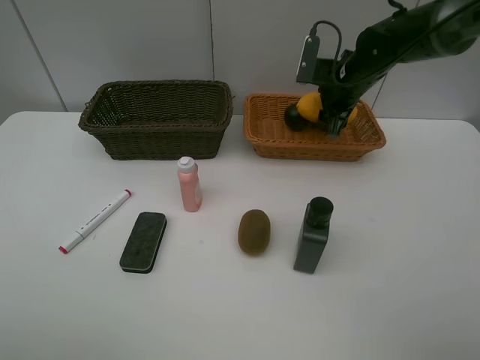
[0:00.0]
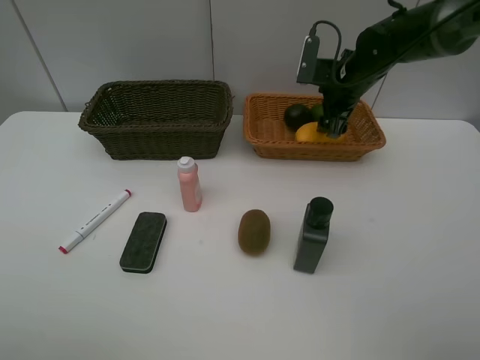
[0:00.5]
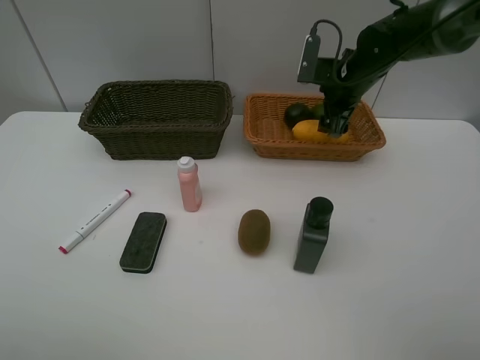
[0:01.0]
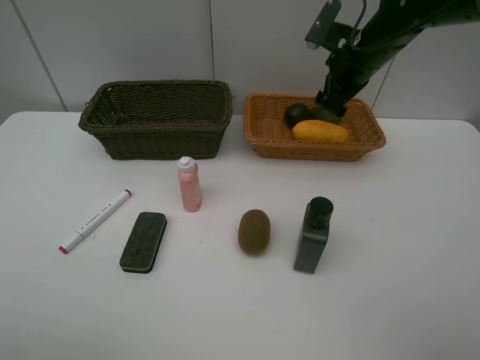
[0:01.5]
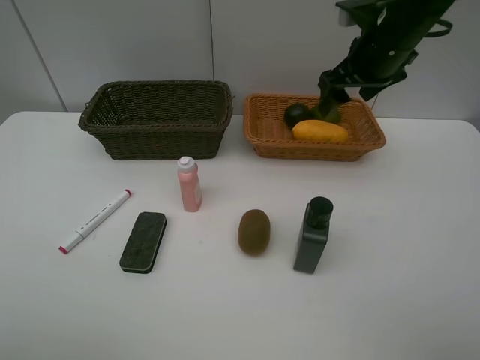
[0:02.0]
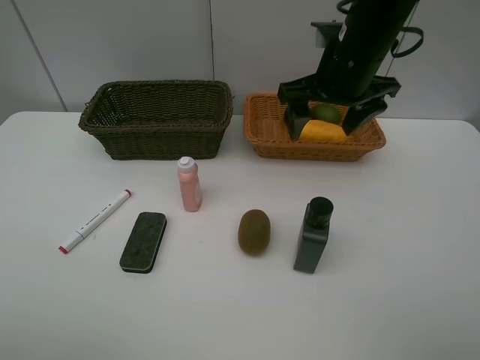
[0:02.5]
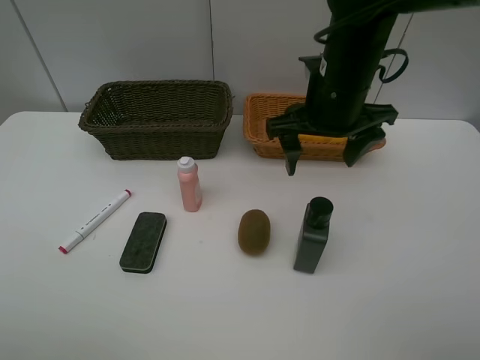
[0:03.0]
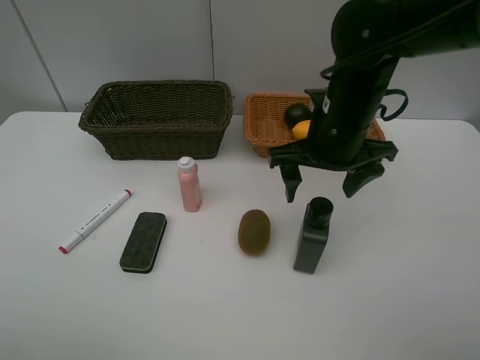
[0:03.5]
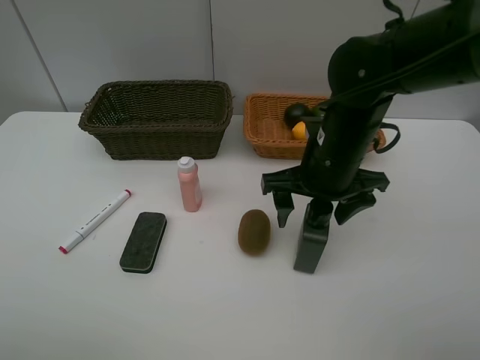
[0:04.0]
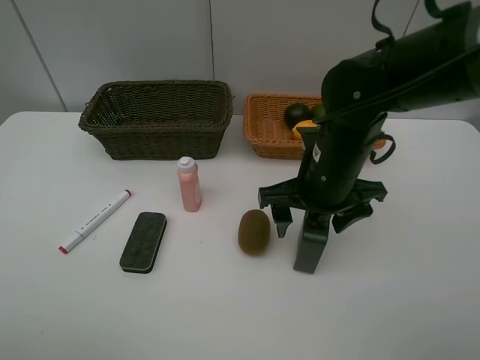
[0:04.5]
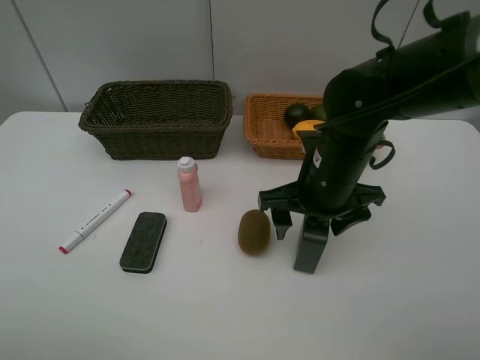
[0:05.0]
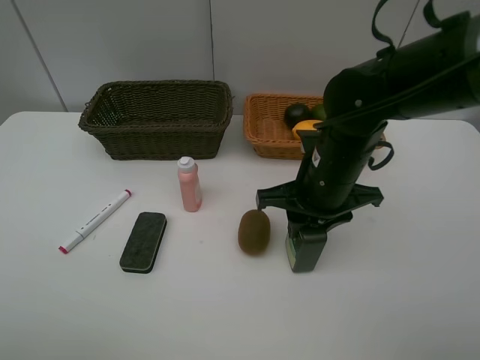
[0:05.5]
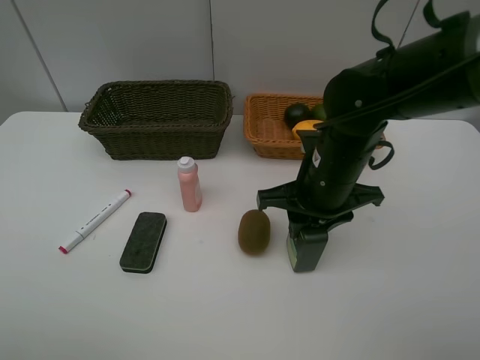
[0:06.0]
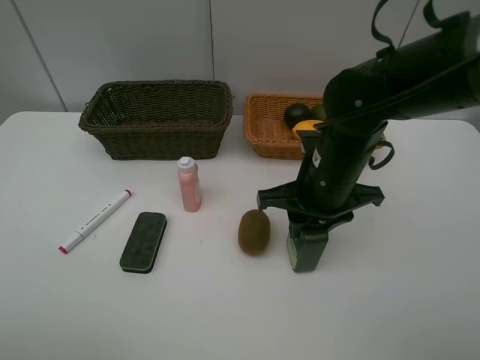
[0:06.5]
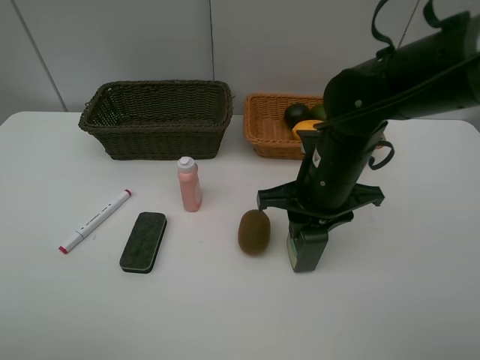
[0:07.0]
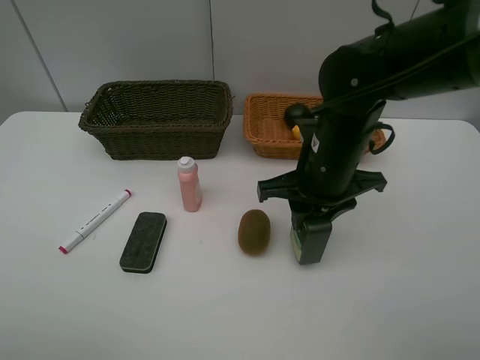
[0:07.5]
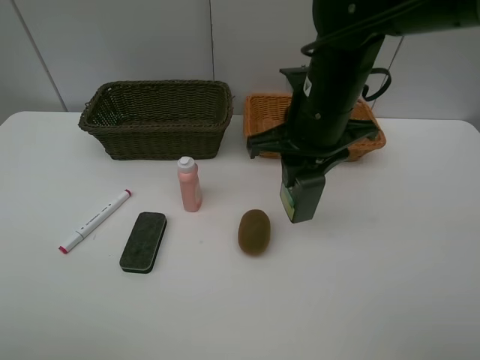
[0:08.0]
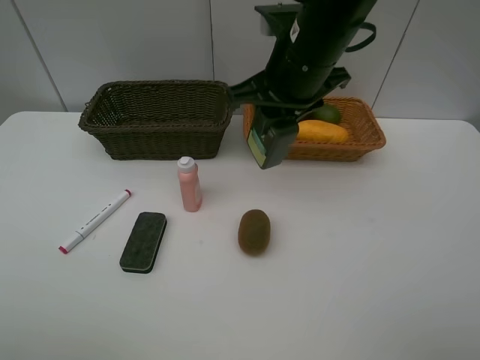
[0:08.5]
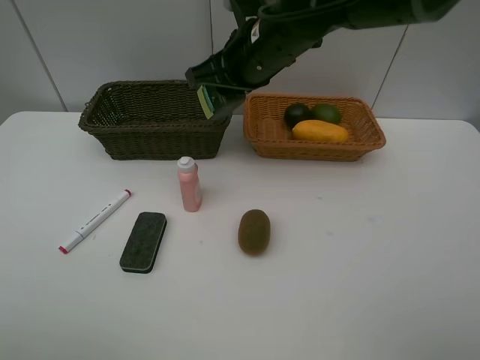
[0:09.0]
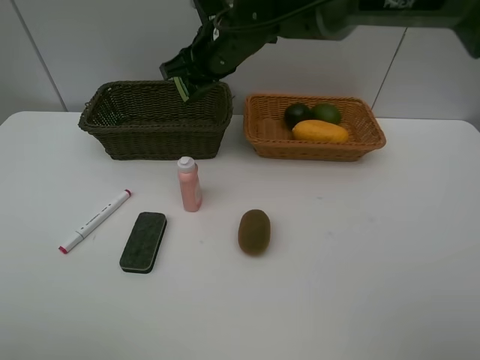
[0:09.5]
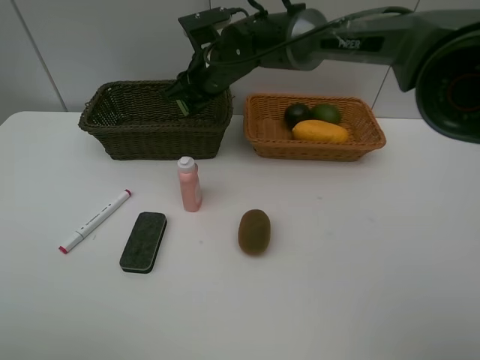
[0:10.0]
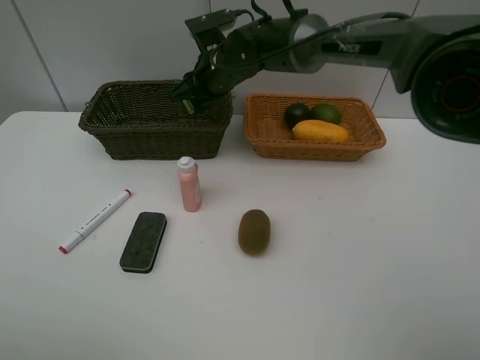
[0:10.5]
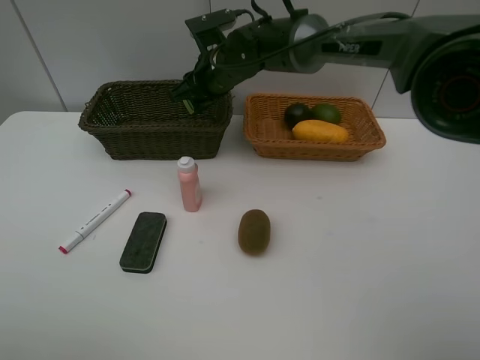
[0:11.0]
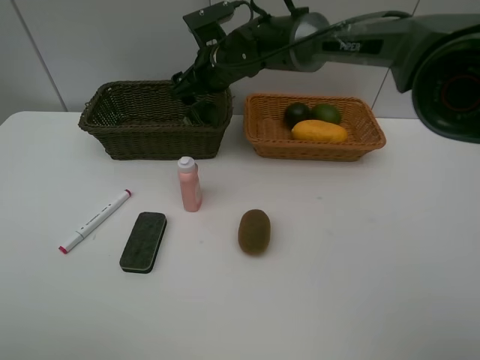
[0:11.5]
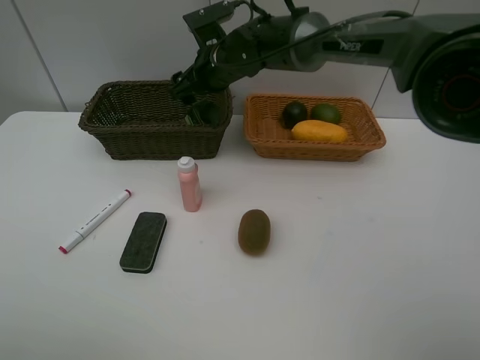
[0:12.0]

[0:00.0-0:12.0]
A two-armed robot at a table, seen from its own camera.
Task of the whole recording: Place multiple objects separately in different baskets.
Step, 0:01.5 to 0:07.5: Pick up the hard facial cleanser with right gripper.
0:00.0 to 0:02.0: The right gripper is displaced upward and backward by some 10 cm, and opens its fingers.
0:02.0 to 0:04.0: The right gripper travels backward, downward and to the left by approximately 15 cm.
0:04.0 to 0:06.0: The right gripper closes up.
0:06.0 to 0:08.0: The right gripper is displaced upward by about 5 cm.
0:08.0 to 0:10.0: The right gripper travels forward and to the left by roughly 20 cm.
0:10.0 to 0:12.0: The right gripper opens its fingers.

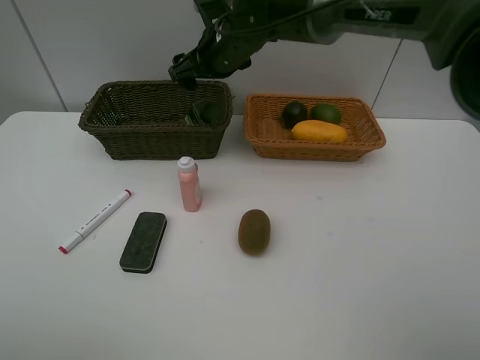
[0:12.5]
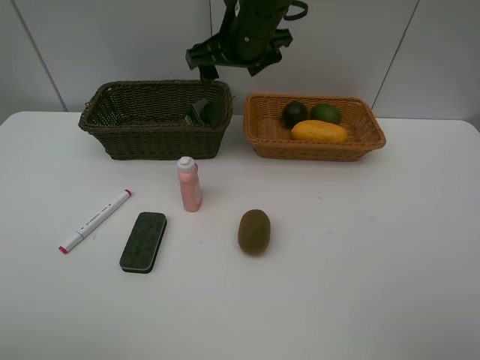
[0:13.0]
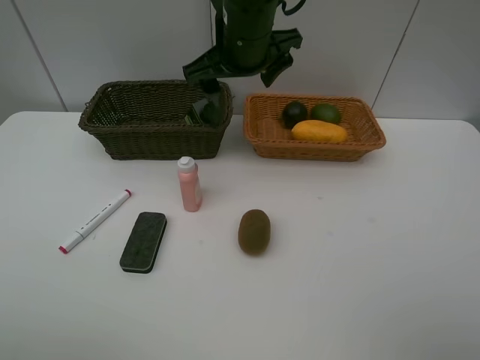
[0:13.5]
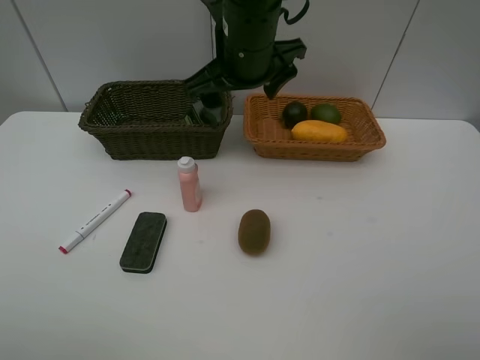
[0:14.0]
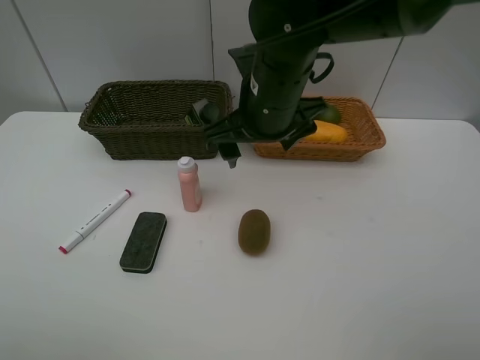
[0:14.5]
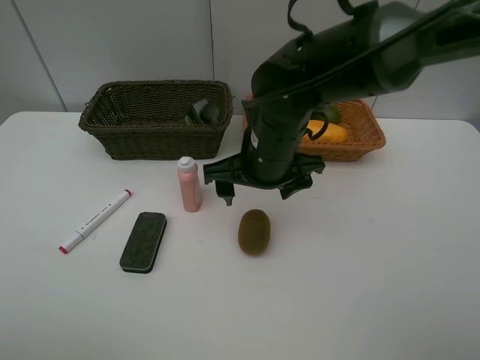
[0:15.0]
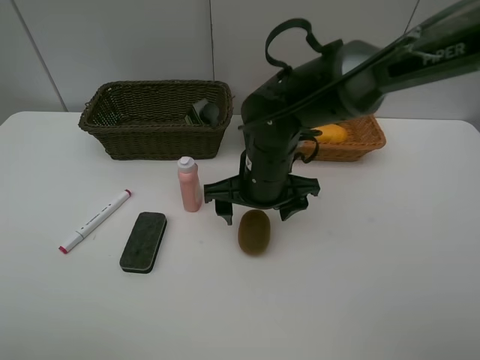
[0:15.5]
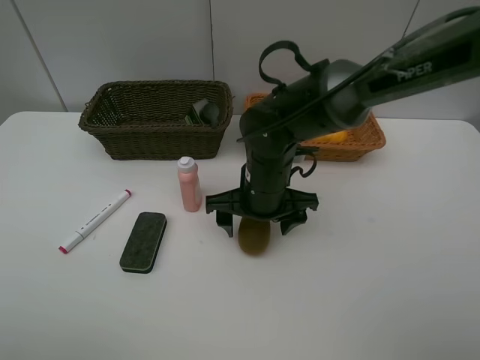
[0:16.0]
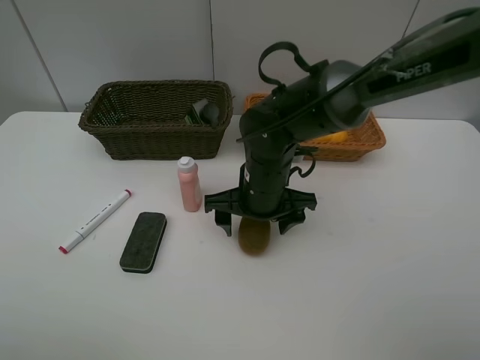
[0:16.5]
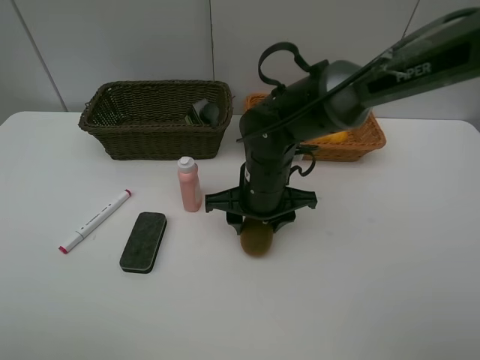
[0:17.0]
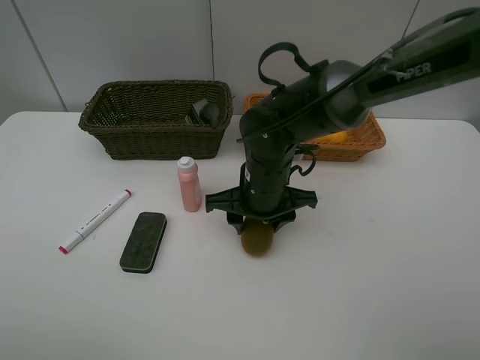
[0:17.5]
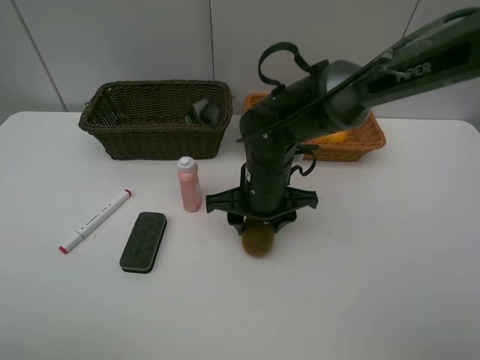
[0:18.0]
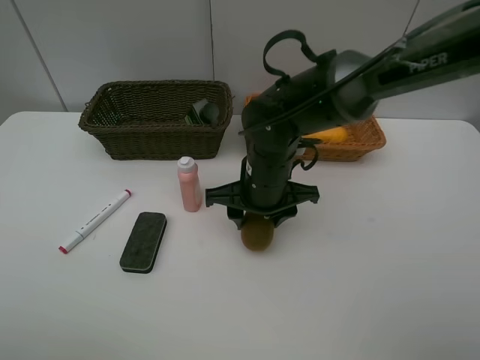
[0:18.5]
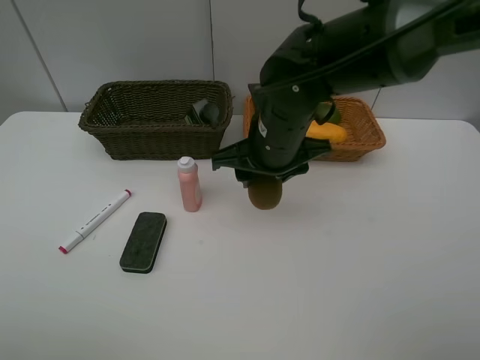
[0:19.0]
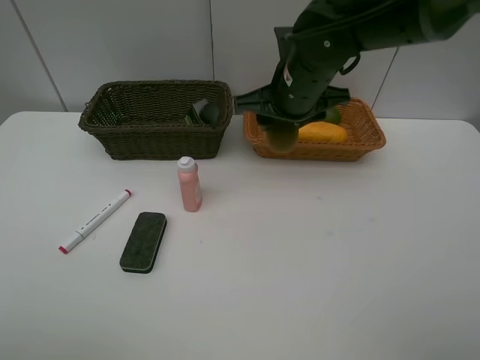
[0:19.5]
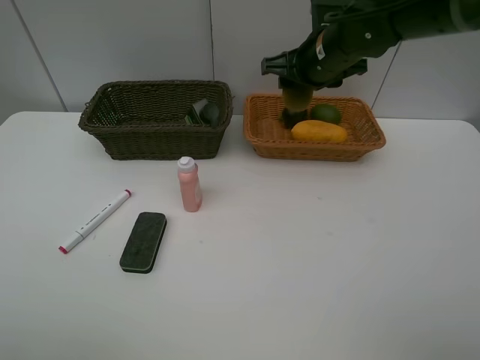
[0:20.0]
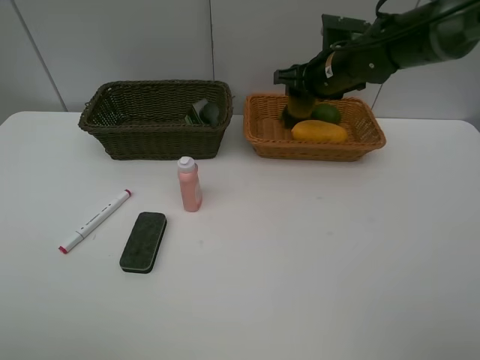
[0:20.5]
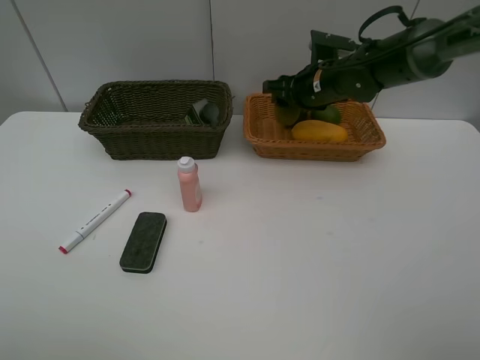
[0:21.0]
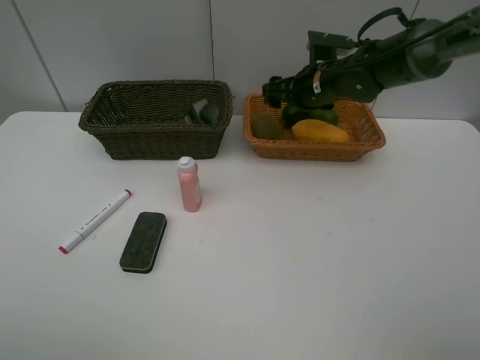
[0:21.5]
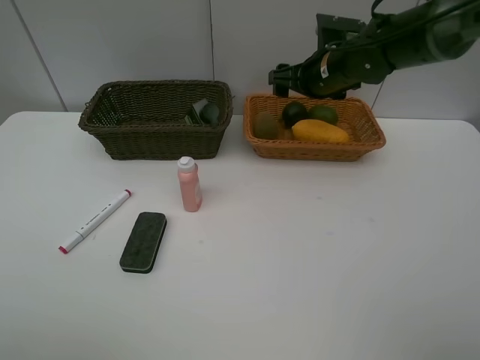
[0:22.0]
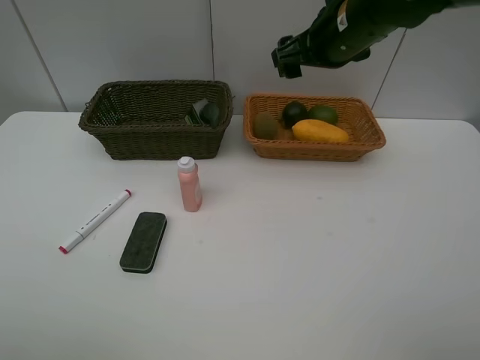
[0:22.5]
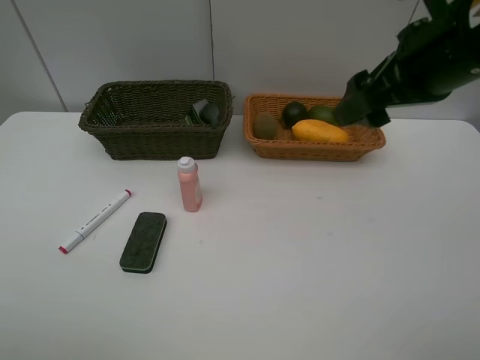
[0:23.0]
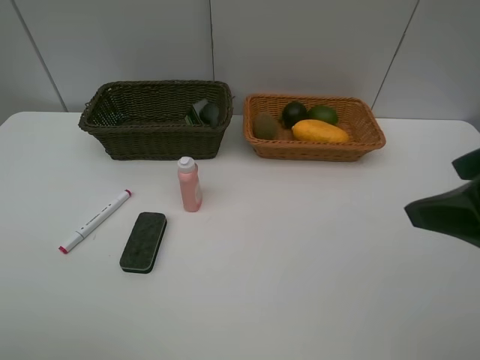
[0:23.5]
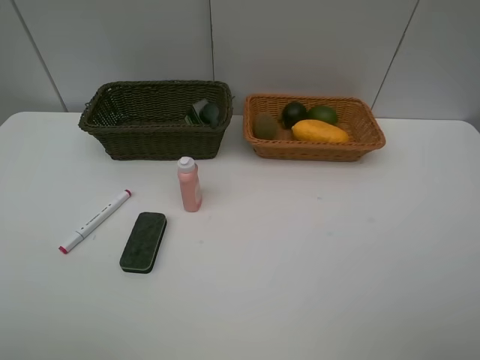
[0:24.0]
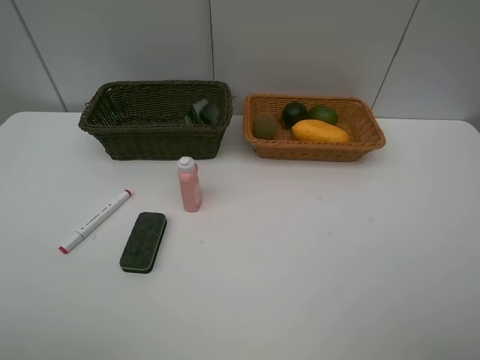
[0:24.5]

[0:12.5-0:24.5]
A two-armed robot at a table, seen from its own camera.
Task of the whole recording: Place multiple objects separately in different baskets.
Step, 0:12.5 to 0:18.5: Pick up kiwi with right gripper.
Step, 0:19.0 to 0:21.5: Place the kiwi in the light basket with right gripper.
0:12.5 to 0:14.5: The right gripper travels backward by some 15 cm.
0:14.5 to 0:16.5: The right gripper goes some 10 cm downward.
0:16.5 to 0:18.5: The right gripper closes its fingers.
0:18.5 to 0:20.5: The right gripper travels forward, to the right and upward by roughly 20 cm.
0:20.5 to 0:22.5: The right gripper moves upward and backward, roughly 10 cm, and opens.
0:22.5 to 0:24.5: The right gripper moves backward and to the right, approximately 40 cm.

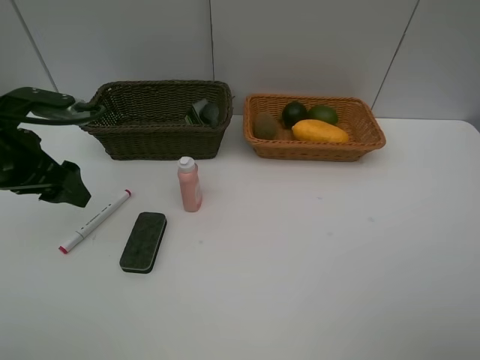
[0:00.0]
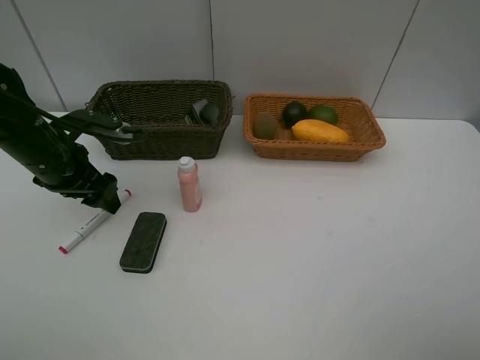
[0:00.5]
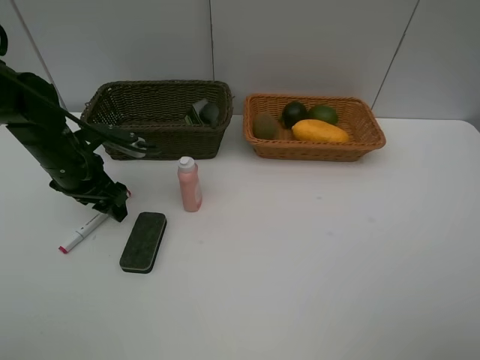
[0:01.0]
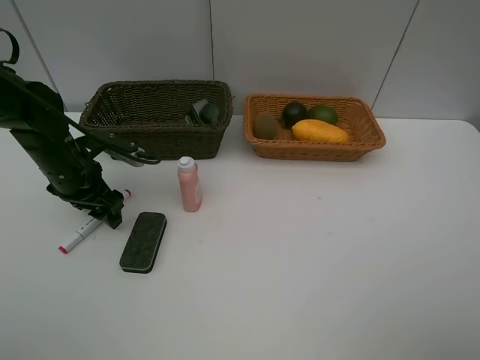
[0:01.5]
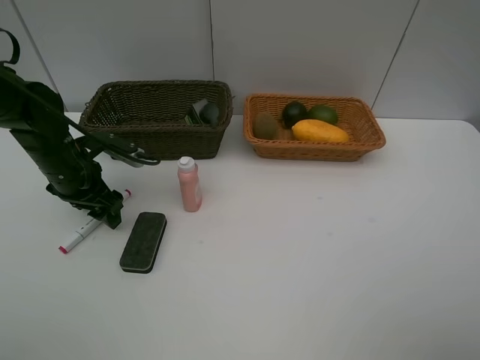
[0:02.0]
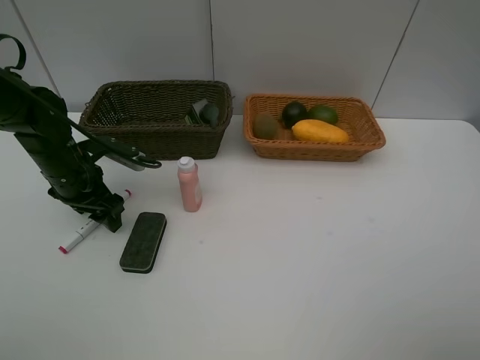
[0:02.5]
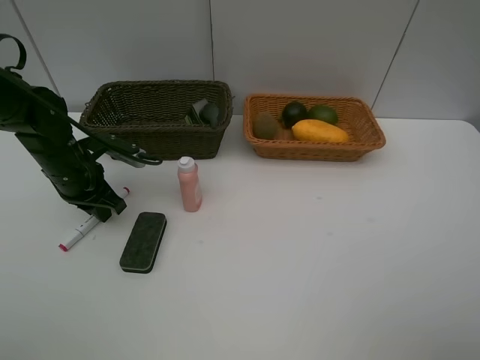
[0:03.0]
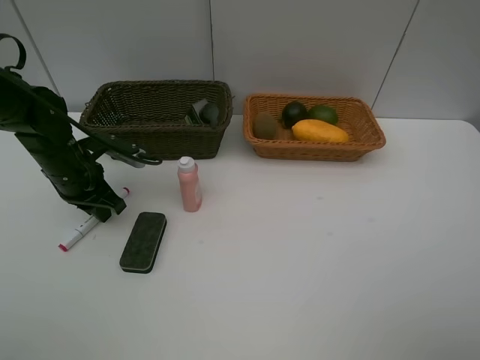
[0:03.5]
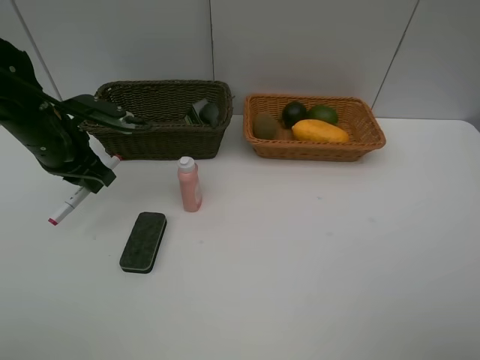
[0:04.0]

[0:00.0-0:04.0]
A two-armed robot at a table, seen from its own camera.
Task of the whole recording: Place multiple objects separately in different baskets.
Step, 0:00.0 to 0:03.5: Pick up the red marker with left gripper.
0:00.0 to 0:02.0: The left gripper goes roughly 10 cm downward and forward.
0:02.0 to 0:04.0: The left gripper moves upward, some 5 cm, and closes.
